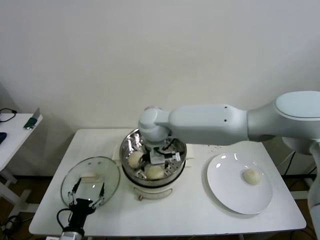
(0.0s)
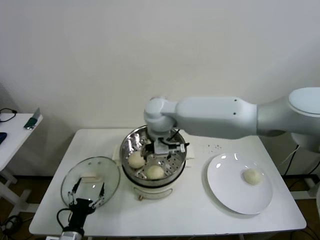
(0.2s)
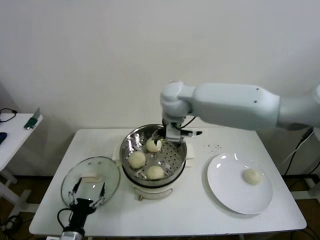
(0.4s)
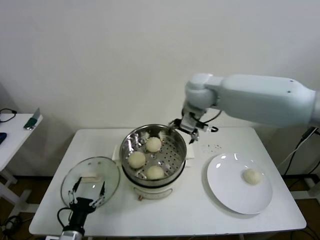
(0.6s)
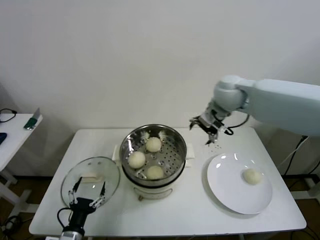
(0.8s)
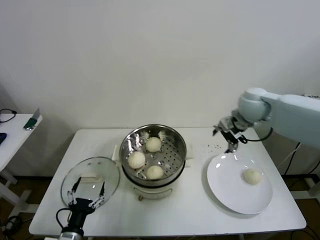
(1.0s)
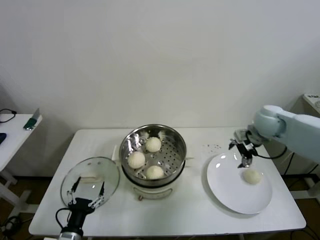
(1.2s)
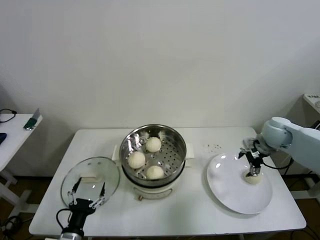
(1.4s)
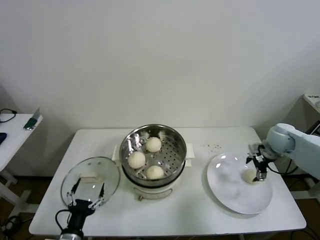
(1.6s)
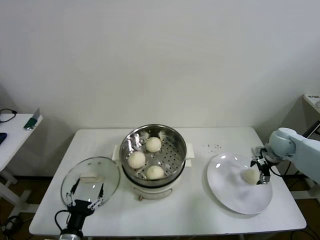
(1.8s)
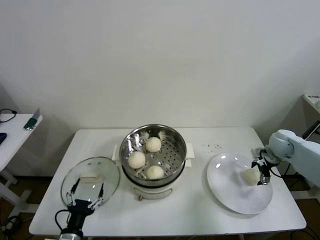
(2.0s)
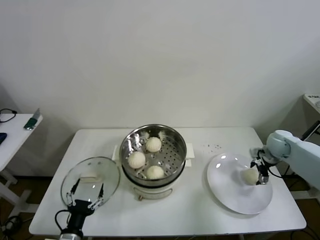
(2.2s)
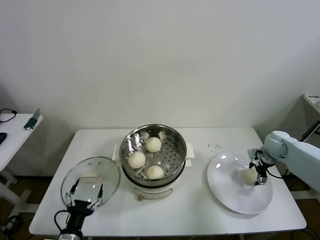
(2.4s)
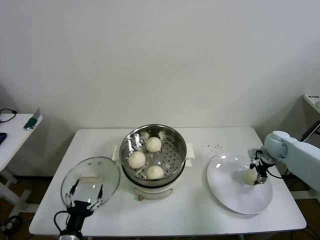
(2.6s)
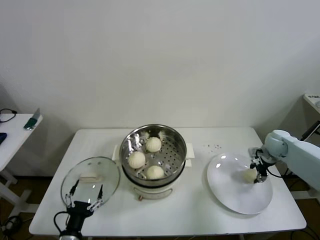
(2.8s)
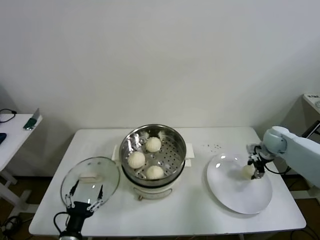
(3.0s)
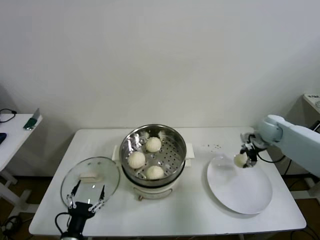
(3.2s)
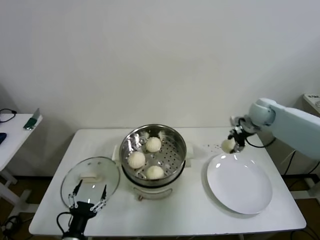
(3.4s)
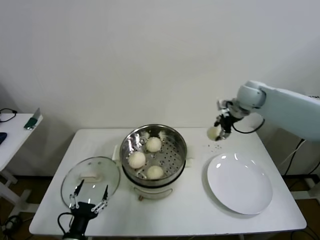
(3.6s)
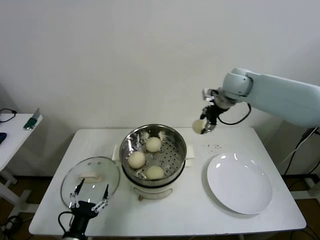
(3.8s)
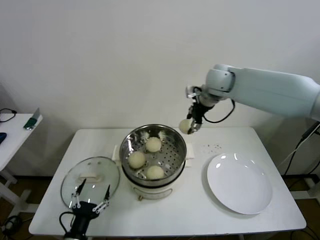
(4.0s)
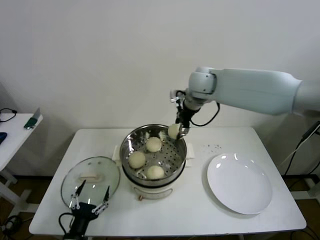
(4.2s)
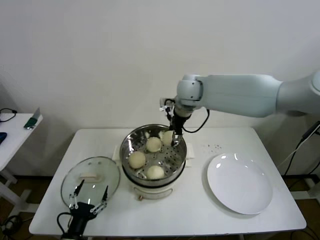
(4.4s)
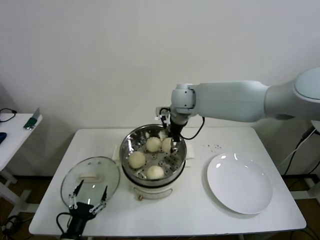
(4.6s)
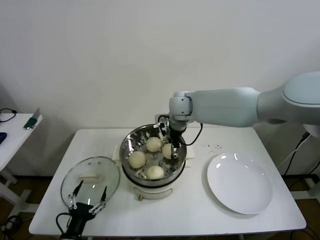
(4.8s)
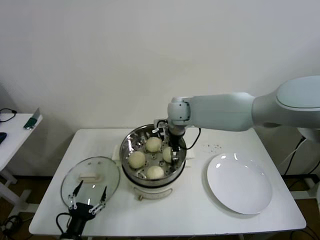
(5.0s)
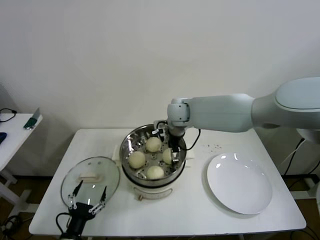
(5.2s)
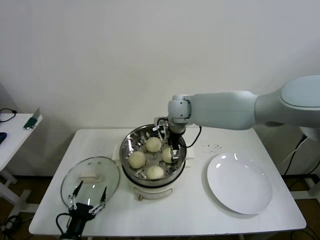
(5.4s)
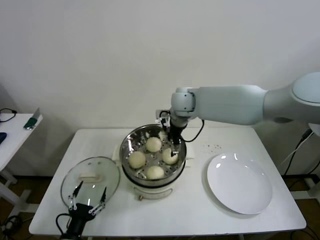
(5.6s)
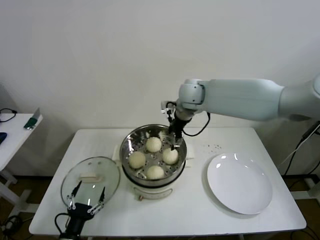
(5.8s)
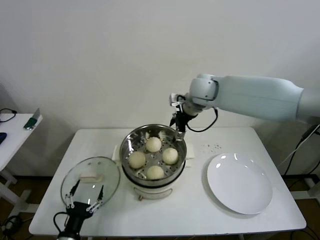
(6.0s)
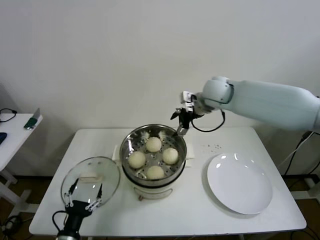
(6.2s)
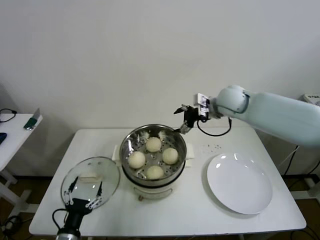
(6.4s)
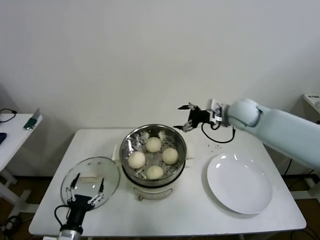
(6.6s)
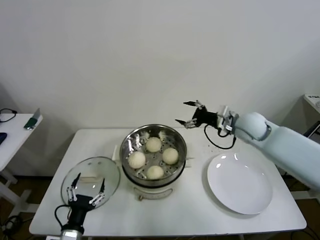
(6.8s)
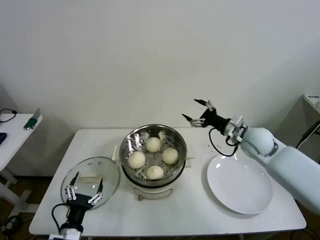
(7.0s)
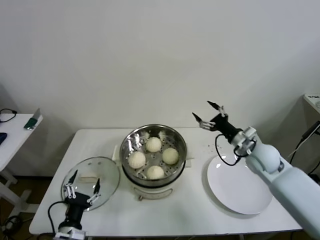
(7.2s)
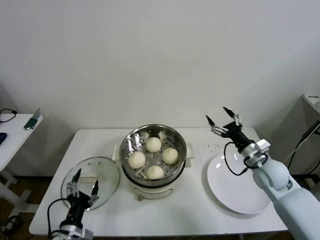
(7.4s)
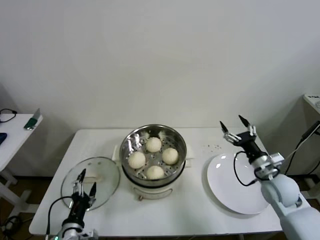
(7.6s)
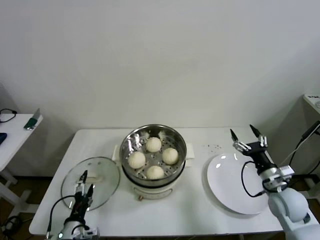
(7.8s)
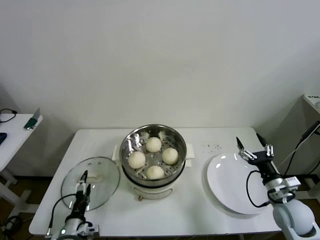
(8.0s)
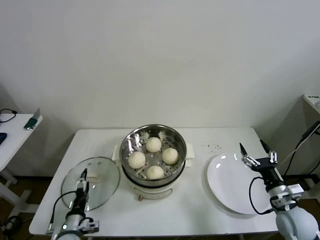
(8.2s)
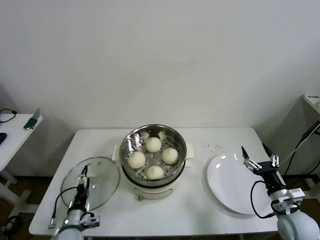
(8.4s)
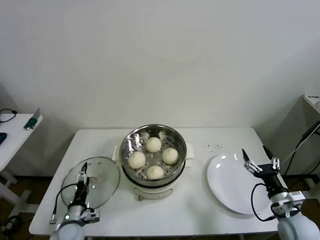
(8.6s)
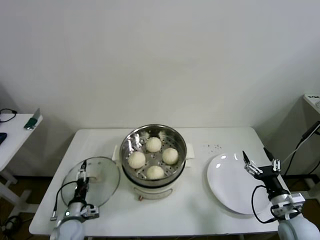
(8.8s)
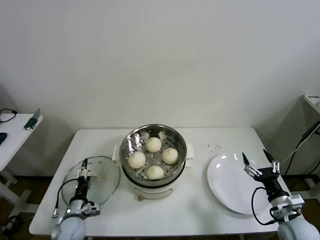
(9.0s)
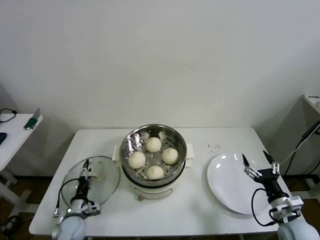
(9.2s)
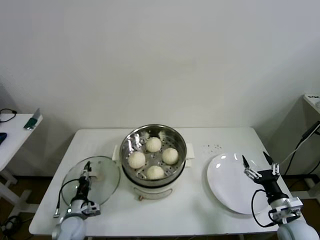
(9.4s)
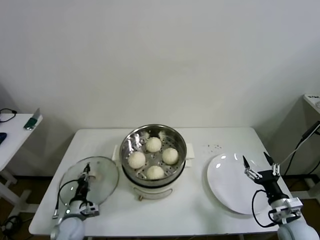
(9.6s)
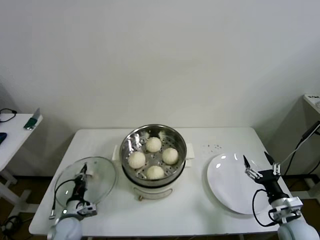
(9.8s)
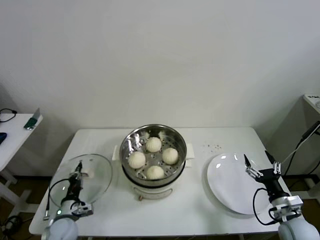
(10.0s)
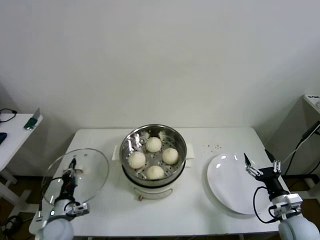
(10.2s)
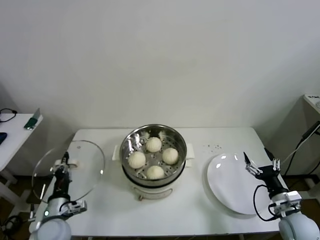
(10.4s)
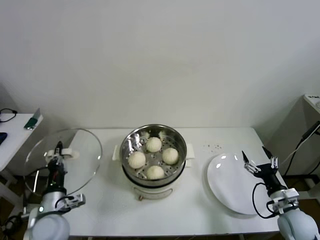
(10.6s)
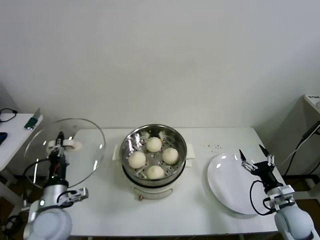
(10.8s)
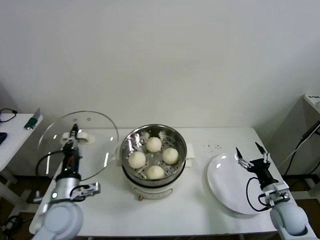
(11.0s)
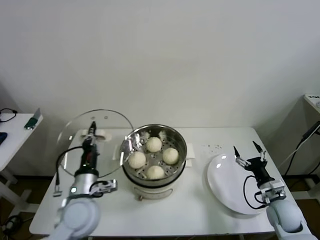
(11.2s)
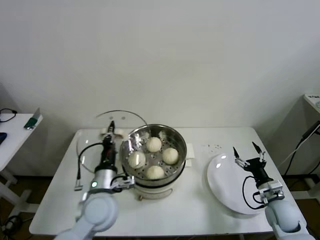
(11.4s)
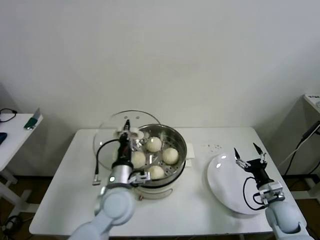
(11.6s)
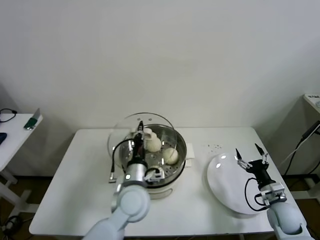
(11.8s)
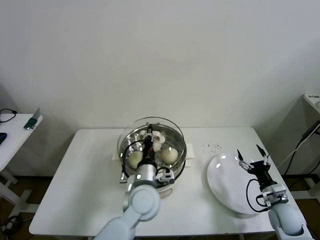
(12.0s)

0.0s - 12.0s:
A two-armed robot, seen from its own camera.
Step, 0.2s - 2.8s: Grasp the baozi in the plate with right gripper.
Step, 3.0s - 5.6s: Place the baozi on the steamer with right gripper.
Step, 5.8s - 9.8s: Grasp the pot lid with left gripper.
0.0s - 1.6s: The right gripper moves to the right, approximately 40 cm.
1.6s - 3.0s: The right gripper closes up.
3.0s - 4.4s: The right gripper is displaced to the left and upward by approximately 40 cm.
4.4s - 6.0s: The right gripper moves roughly 10 cm downward and comes back, and opens up.
6.0s - 7.6s: The right gripper moves downward, to the right and backward, roughly 40 cm.
7.6s - 9.0s: The right gripper heads backward and downward, covering approximately 15 cm. The left gripper travels forward and downward by roughly 15 cm.
9.0s - 10.4s: The left gripper travels upward by some 10 cm, and closes its fingers.
10.4s - 12.0s: The left gripper goes about 25 cm to the right, while the right gripper ends up approximately 5 cm from where it was.

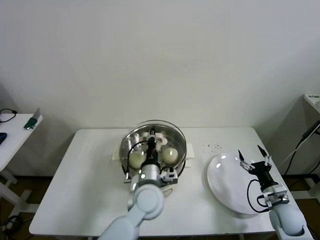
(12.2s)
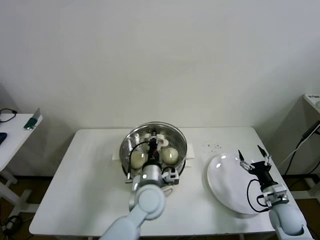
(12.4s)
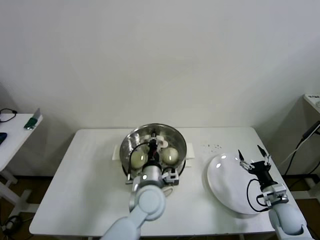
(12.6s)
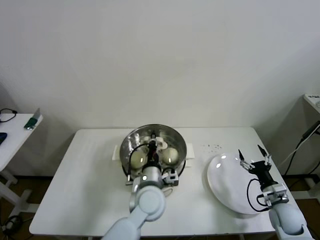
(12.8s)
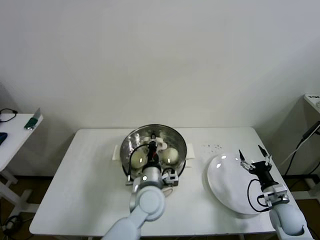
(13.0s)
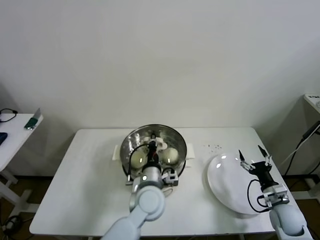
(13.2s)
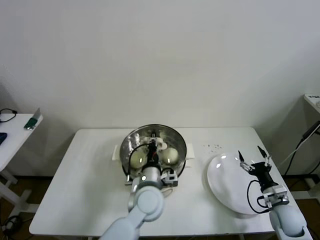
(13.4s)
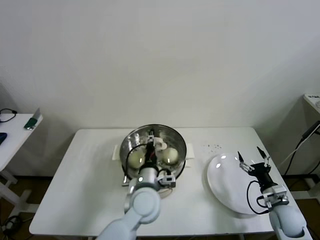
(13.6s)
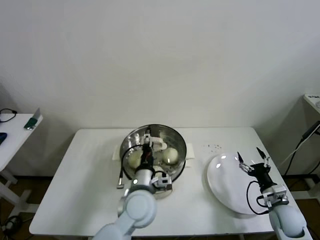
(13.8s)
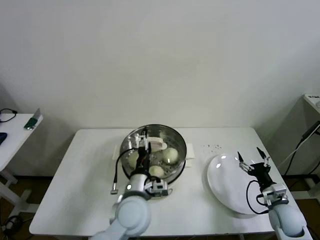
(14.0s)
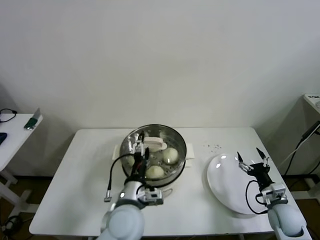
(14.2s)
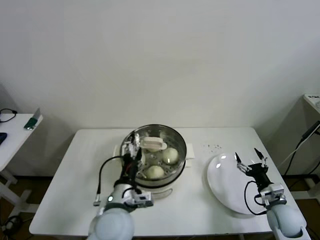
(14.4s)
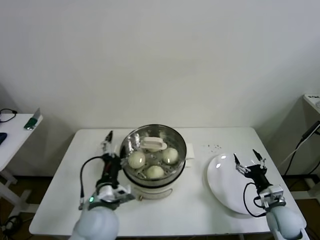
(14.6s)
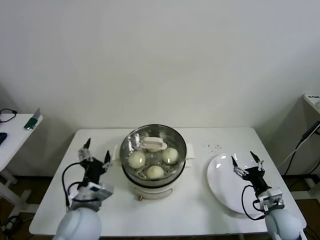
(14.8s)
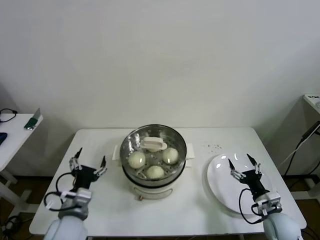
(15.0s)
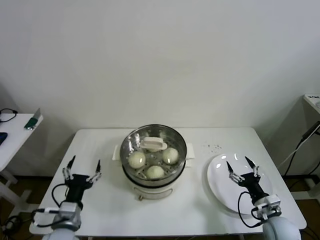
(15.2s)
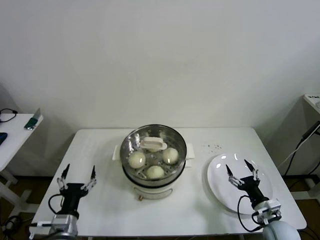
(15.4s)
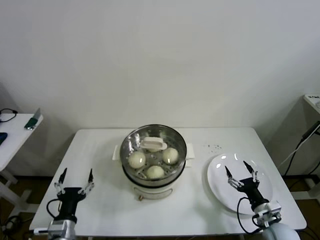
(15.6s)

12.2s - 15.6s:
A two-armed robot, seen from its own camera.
Step, 12.2s - 14.2s: Place the pot lid on the steamer with left gripper.
12.2s - 13.8s: The left gripper opens up.
13.8s - 15.6s: The right gripper shifts by approximately 5 cm; the left gripper moves to the left and backward, roughly 25 cm, and opens its fingers.
